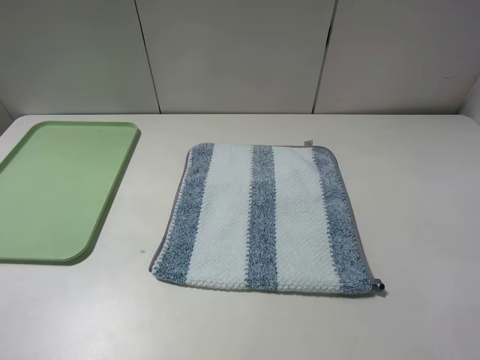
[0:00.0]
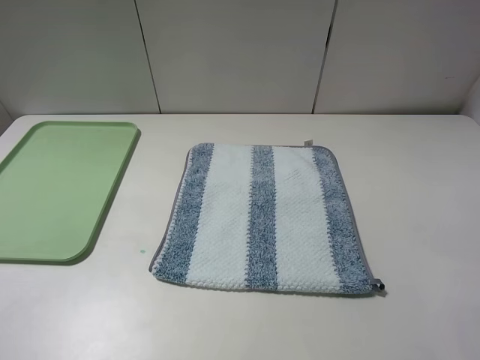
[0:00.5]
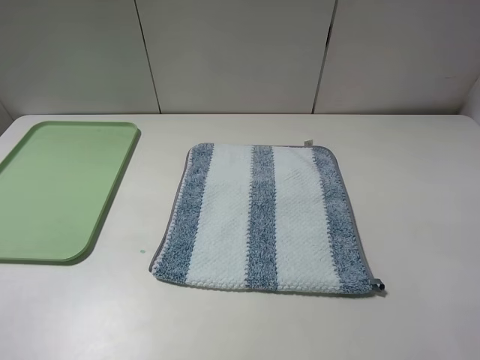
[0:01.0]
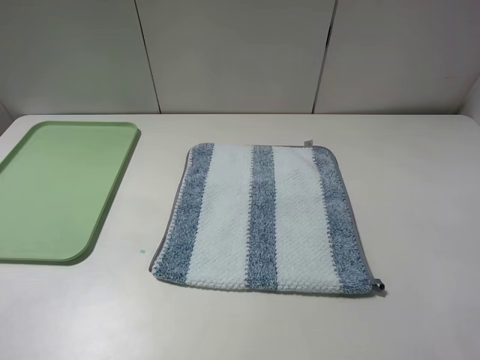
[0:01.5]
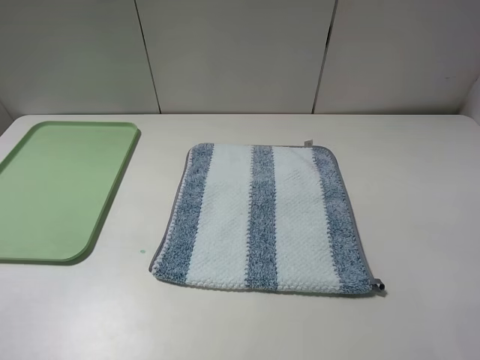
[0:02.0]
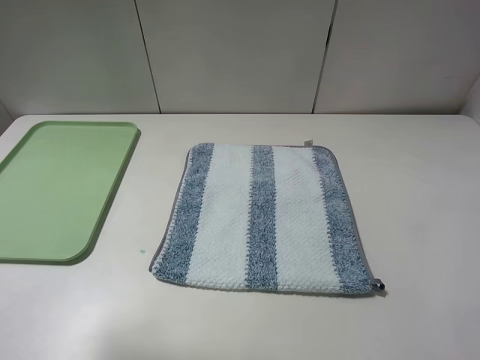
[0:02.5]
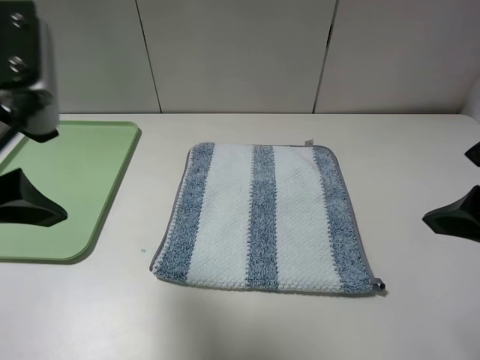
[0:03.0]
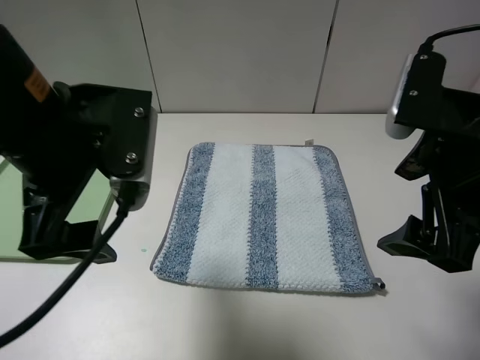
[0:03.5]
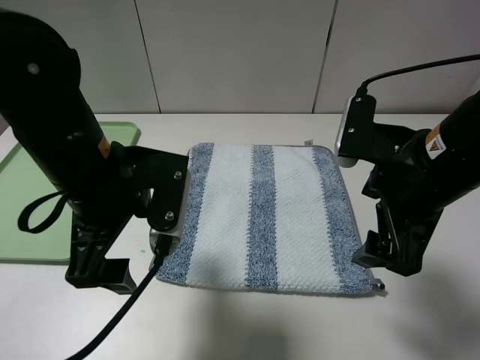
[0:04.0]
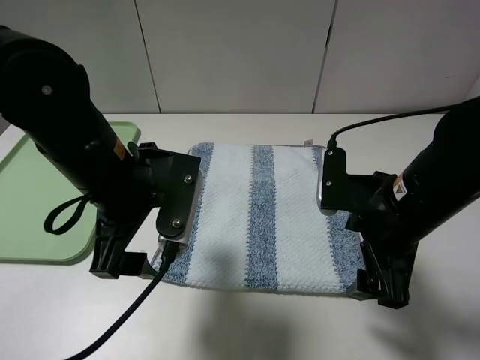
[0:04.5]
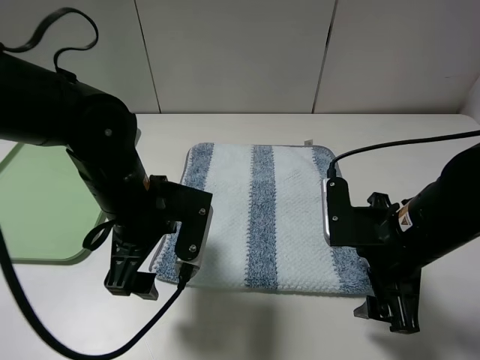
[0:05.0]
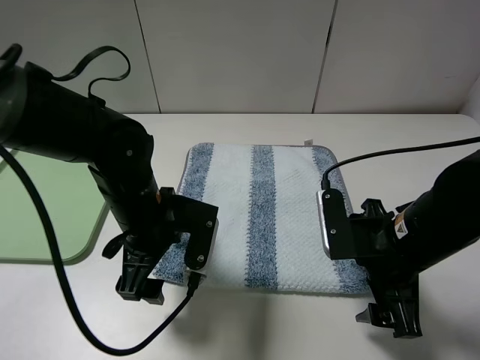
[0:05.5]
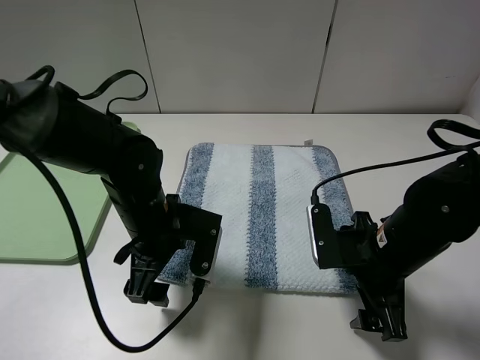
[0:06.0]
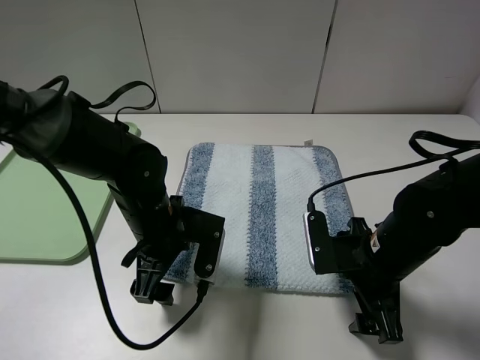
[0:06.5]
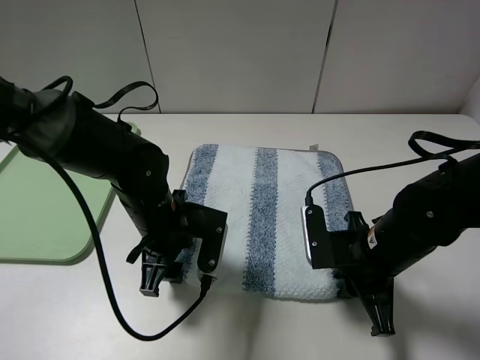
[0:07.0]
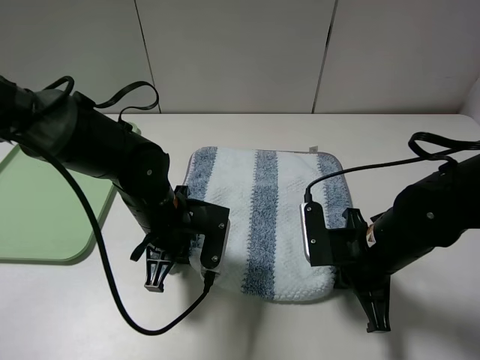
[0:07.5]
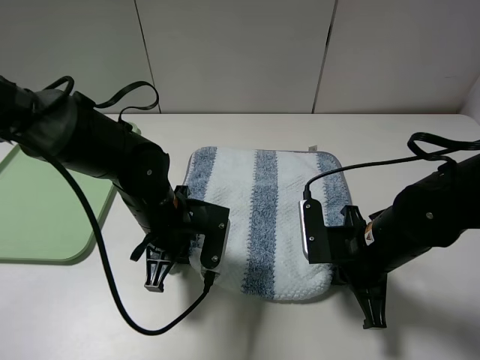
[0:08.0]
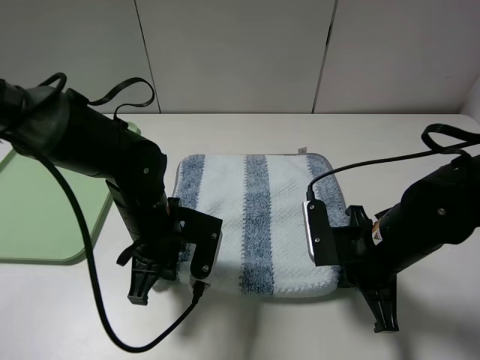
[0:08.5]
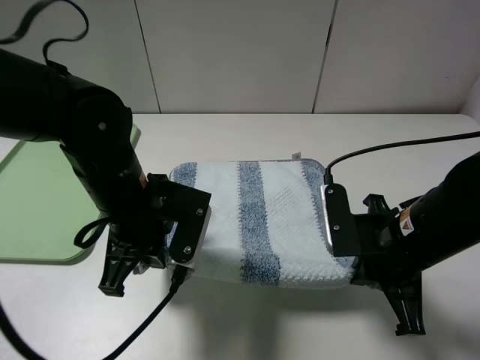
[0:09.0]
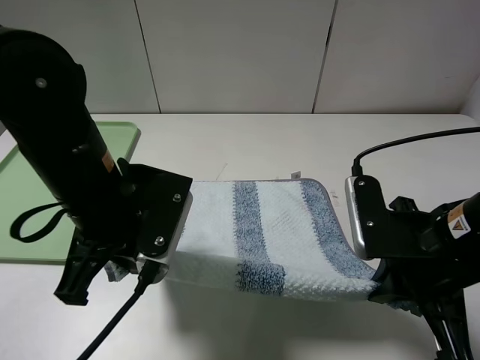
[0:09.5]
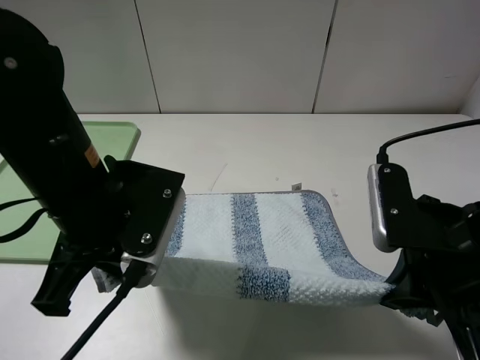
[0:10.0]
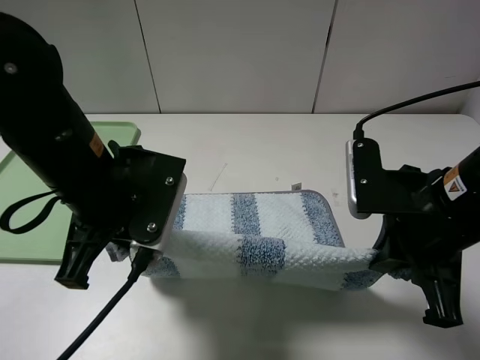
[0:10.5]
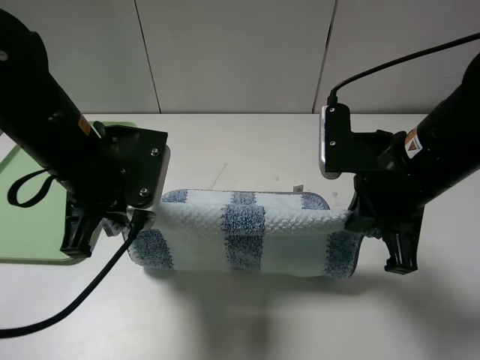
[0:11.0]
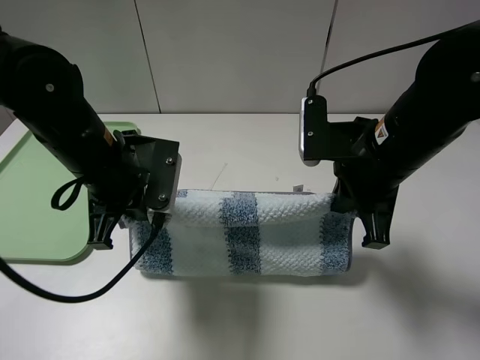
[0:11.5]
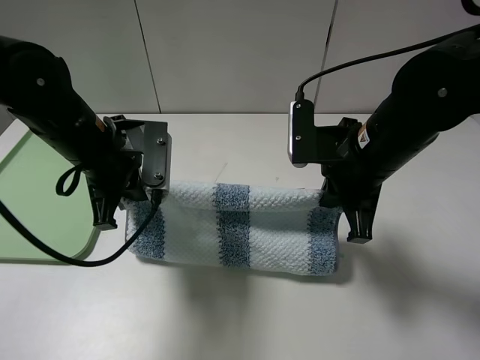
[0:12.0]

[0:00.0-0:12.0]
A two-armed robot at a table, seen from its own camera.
Step, 0.0 to 8.5 s: Grasp the blue white towel with the left gripper.
2.0 to 4.0 s: The left gripper is displaced forward, to the right and downward by roughly 25 cm; the right gripper shifts approximately 20 cm forward and to the left.
4.0 to 6.0 s: The grippers both shift downward by about 10 cm.
6.0 to 8.0 s: The right gripper closes its fingers; the left gripper closes up.
8.0 to 10.0 s: Both grippers move upward and backward, roughly 15 cm.
10.0 to 12.0 s: The left gripper goes approximately 10 cm forward; the right gripper moves forward and to the left, roughly 15 cm.

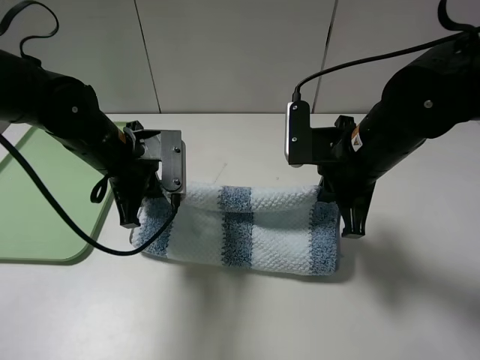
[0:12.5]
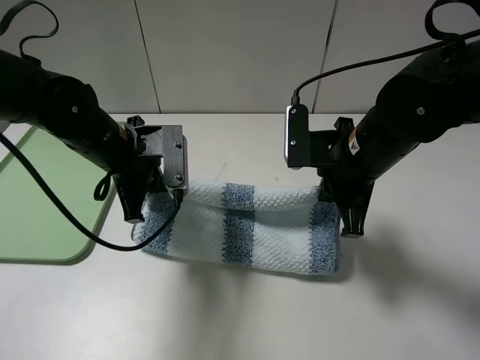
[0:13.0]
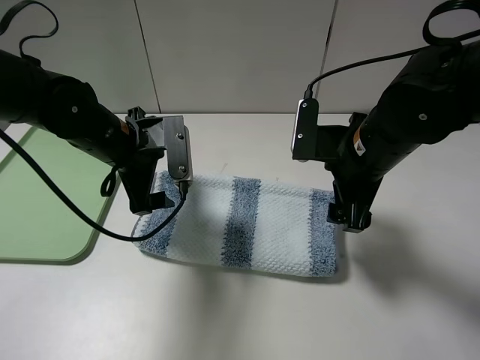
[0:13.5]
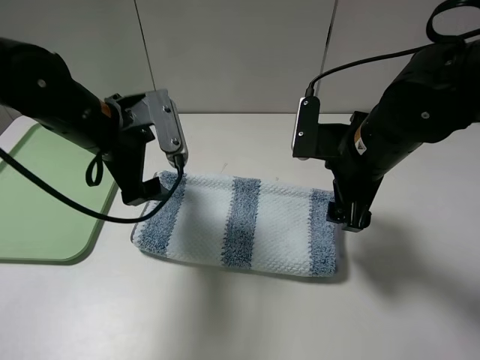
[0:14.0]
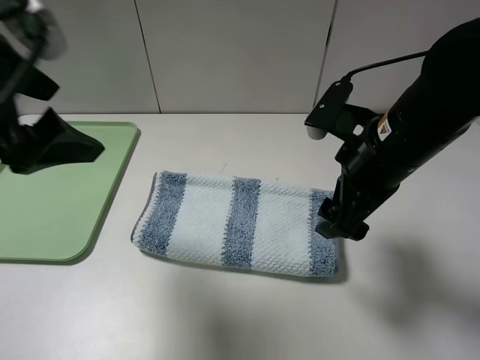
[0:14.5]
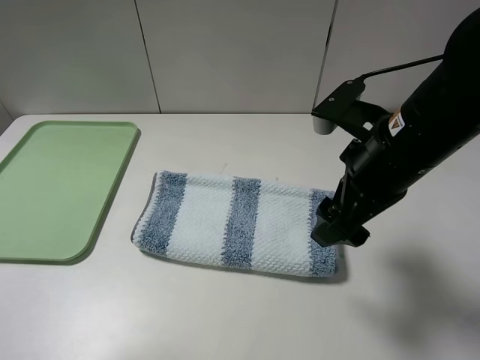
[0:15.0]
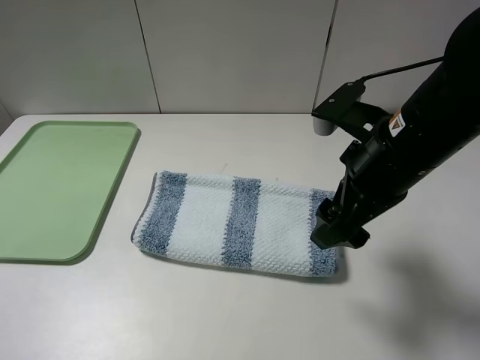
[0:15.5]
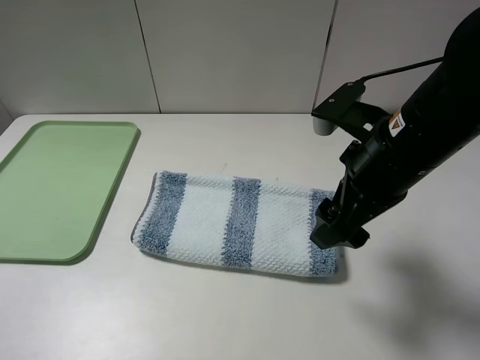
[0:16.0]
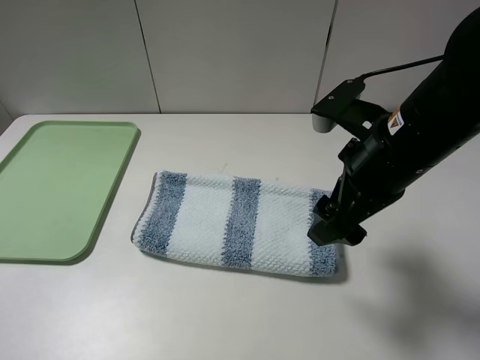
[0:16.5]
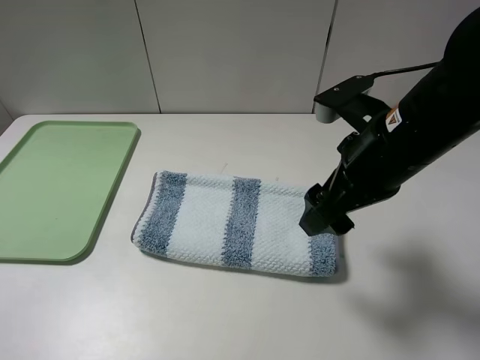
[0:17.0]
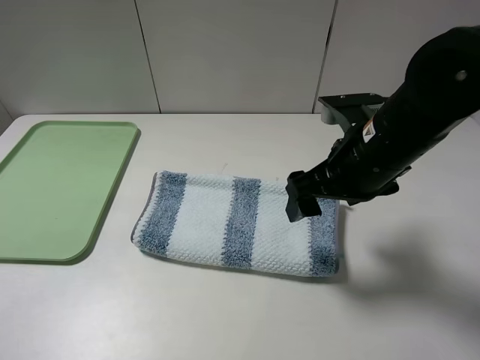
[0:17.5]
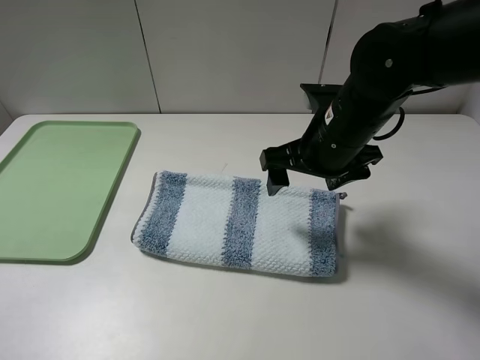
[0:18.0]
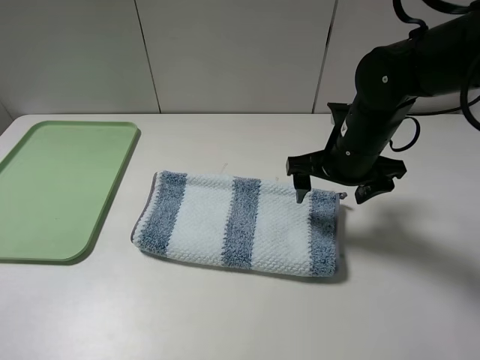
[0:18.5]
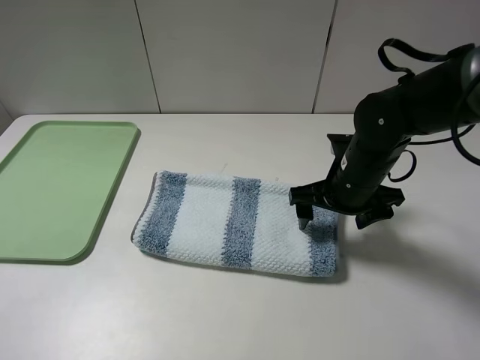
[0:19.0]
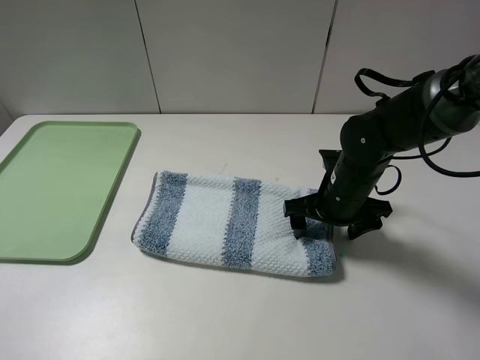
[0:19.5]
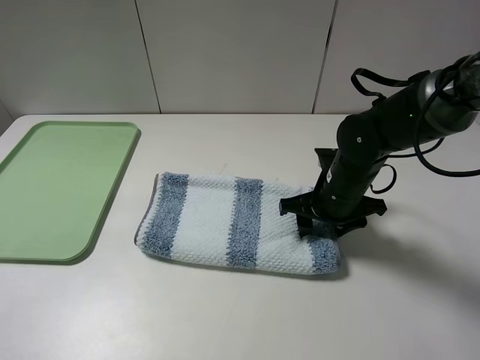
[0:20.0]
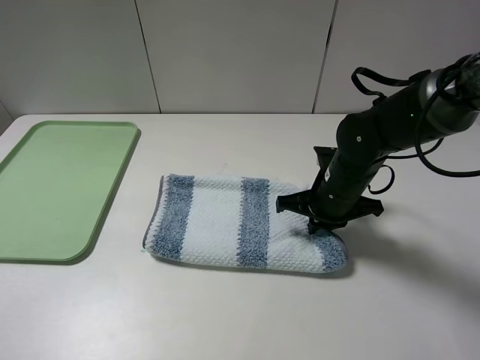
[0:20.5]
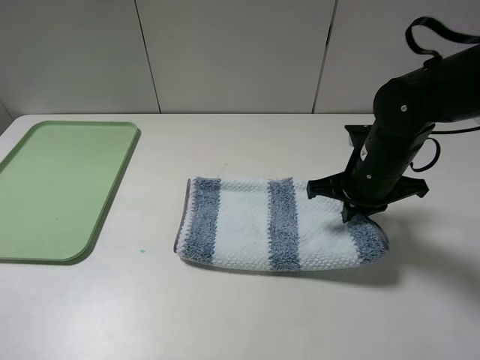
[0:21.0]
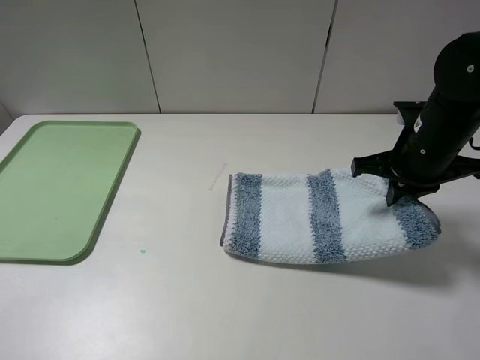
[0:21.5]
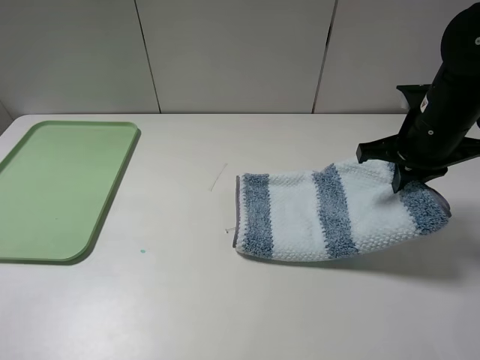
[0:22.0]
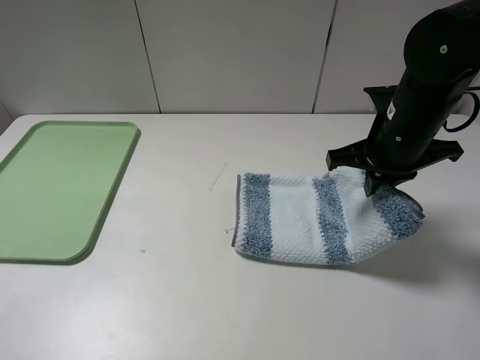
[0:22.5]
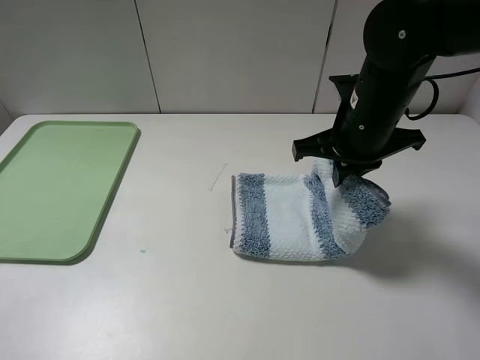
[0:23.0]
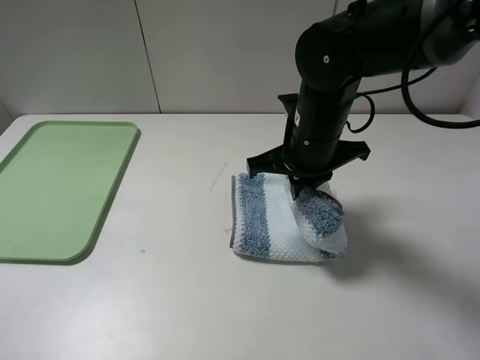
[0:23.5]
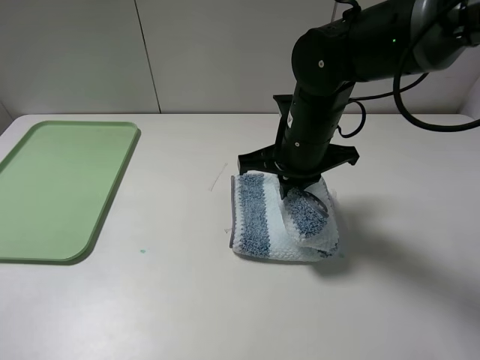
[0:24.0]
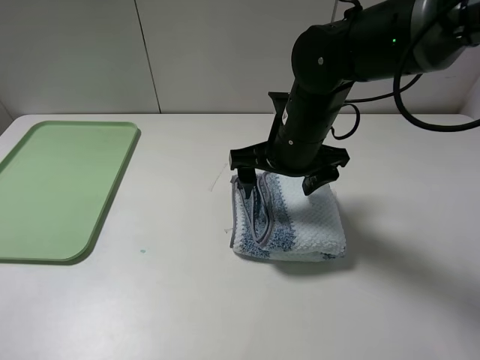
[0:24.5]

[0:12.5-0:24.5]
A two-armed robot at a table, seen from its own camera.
Step, 14.5 to 20.0 s: Grasp the blue white towel with the right gripper.
12.5 to 14.5 s: The right gripper opens its fingers; the left gripper travels upward and backward by roughly 20 cm, and opens up.
14.5 to 16.5 s: The left gripper heads backward and to the left, covering approximately 20 cm.
16.5 to 18.5 s: The right gripper goes approximately 10 cm forward and downward.
18.5 to 20.5 s: The right gripper travels downward by approximately 5 cm, and closes.
20.5 to 22.5 s: The right gripper travels upward by about 10 cm.
22.5 to 24.5 s: The right gripper travels to the left by approximately 10 cm, and opens up.

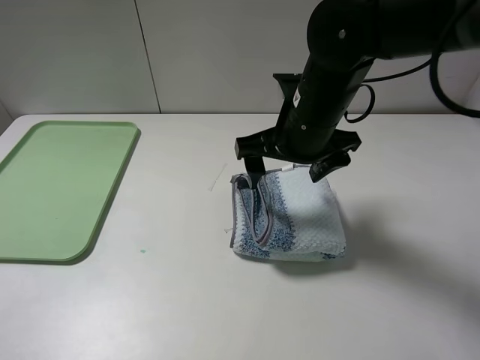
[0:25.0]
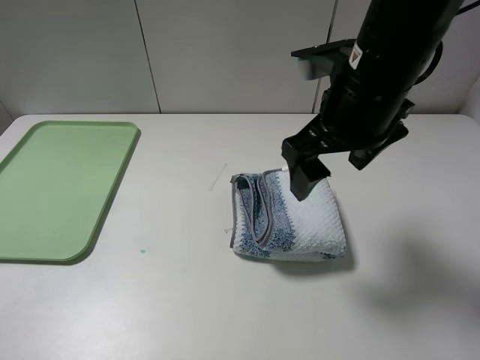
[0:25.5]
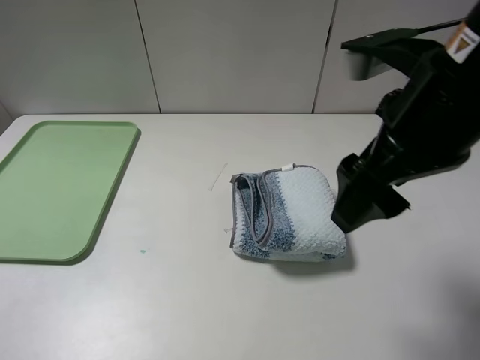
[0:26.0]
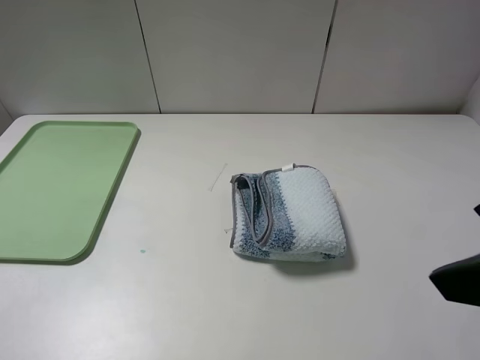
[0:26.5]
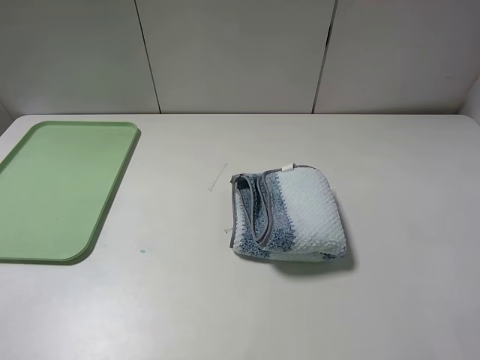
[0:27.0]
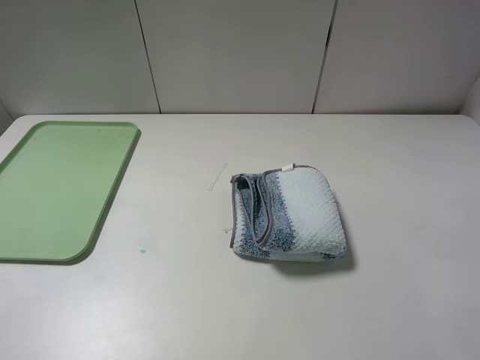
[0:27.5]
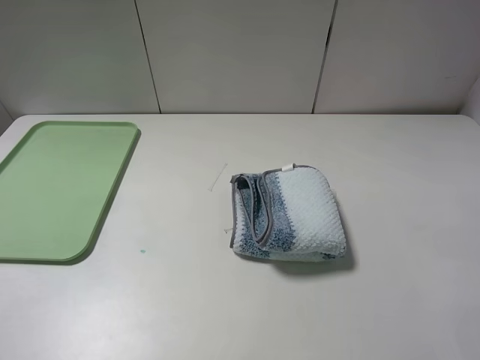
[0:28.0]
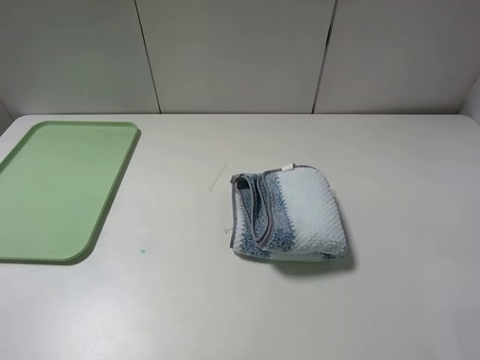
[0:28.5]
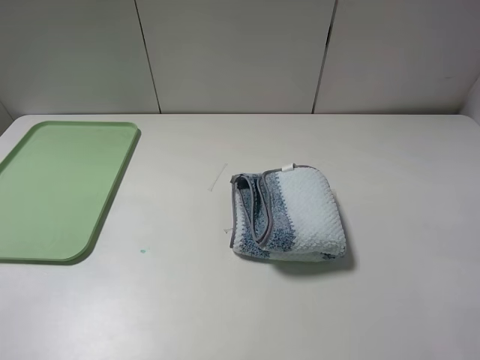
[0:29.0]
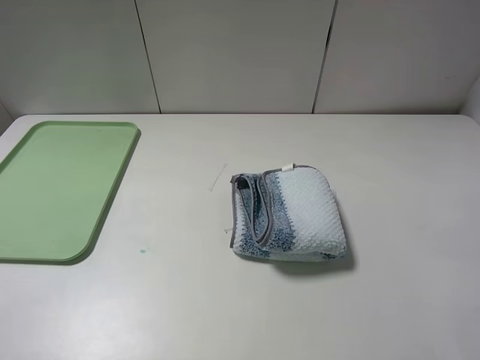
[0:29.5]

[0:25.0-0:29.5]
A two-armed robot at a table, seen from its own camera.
25.0 to 27.0 s: The right gripper goes some 35 cm backward and to the right.
